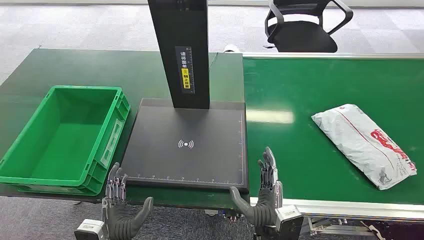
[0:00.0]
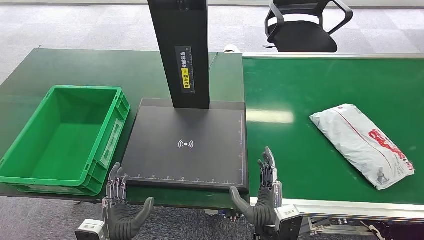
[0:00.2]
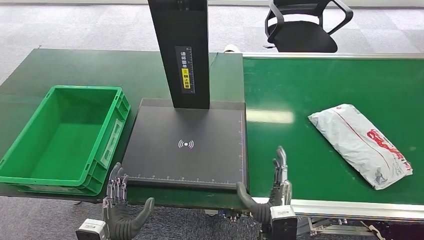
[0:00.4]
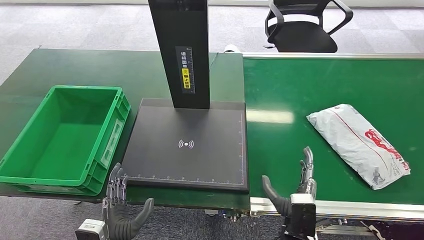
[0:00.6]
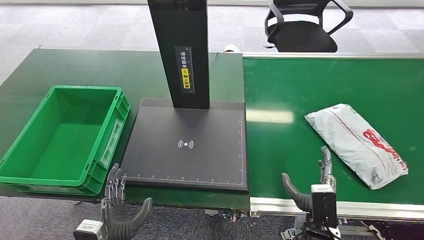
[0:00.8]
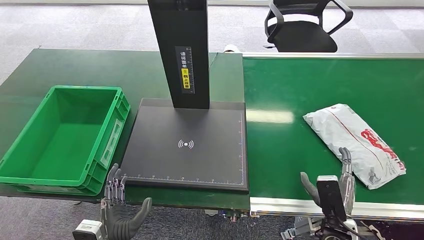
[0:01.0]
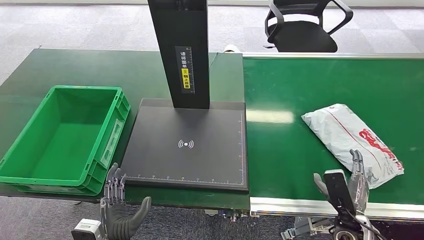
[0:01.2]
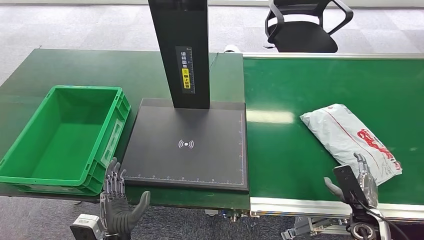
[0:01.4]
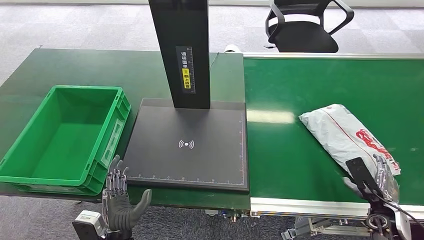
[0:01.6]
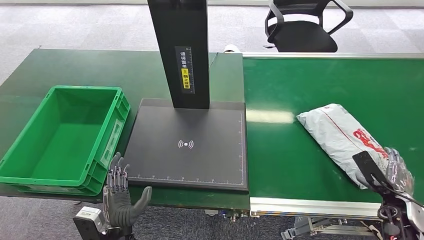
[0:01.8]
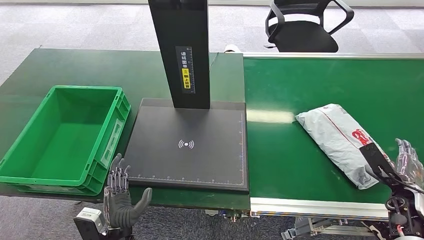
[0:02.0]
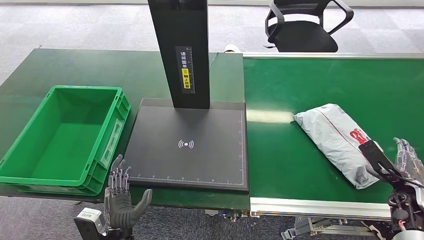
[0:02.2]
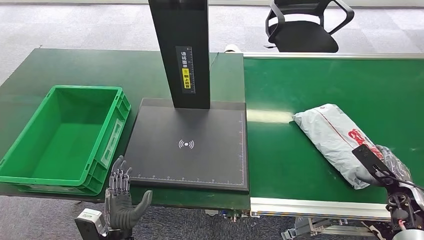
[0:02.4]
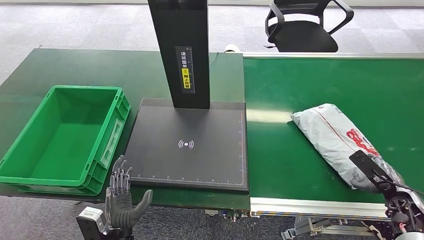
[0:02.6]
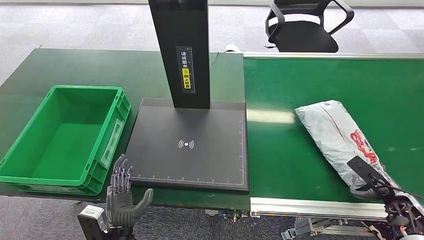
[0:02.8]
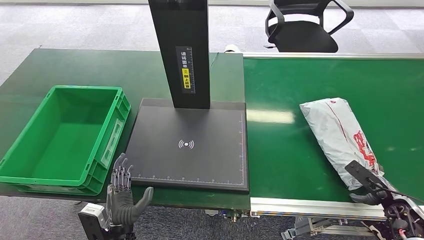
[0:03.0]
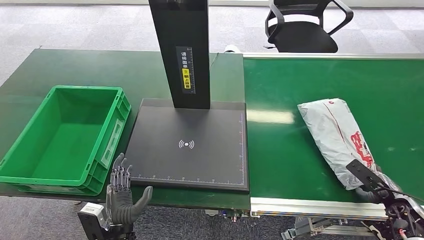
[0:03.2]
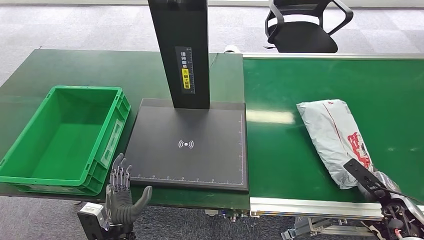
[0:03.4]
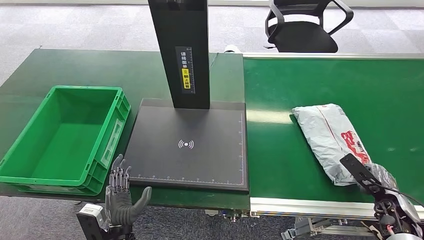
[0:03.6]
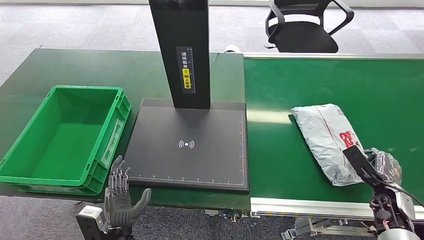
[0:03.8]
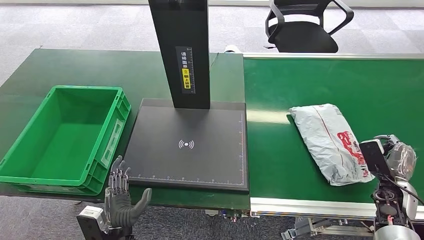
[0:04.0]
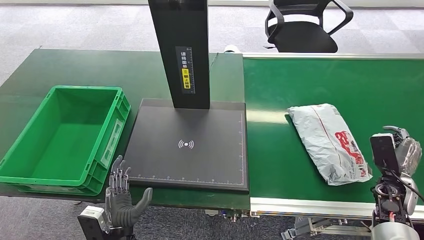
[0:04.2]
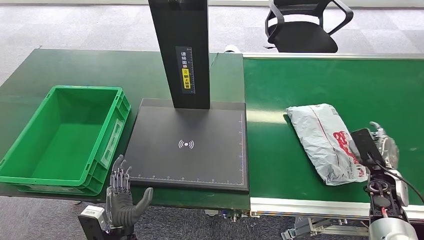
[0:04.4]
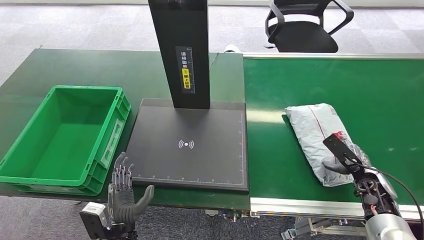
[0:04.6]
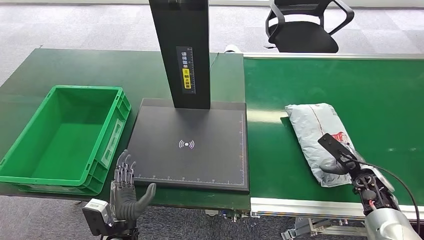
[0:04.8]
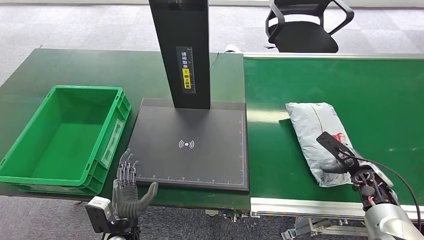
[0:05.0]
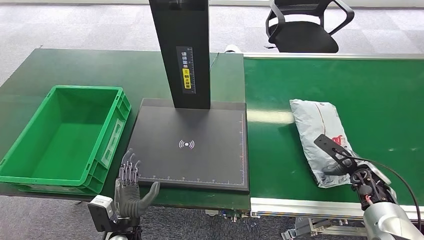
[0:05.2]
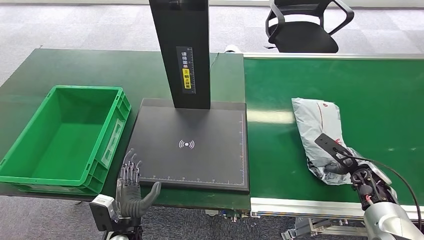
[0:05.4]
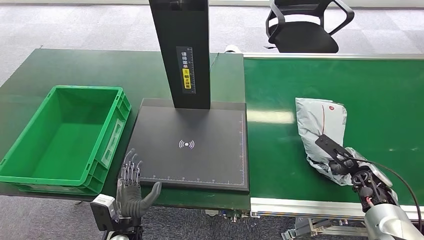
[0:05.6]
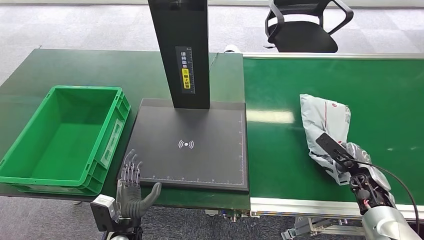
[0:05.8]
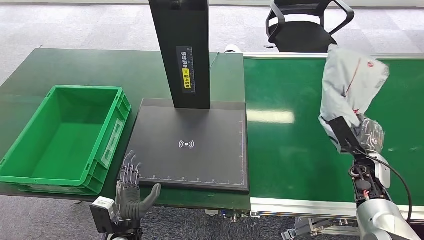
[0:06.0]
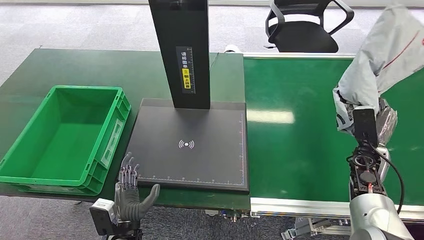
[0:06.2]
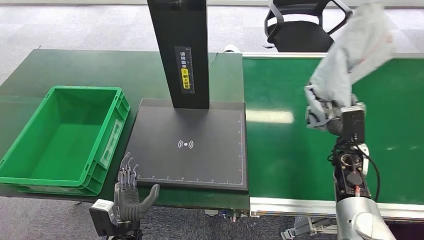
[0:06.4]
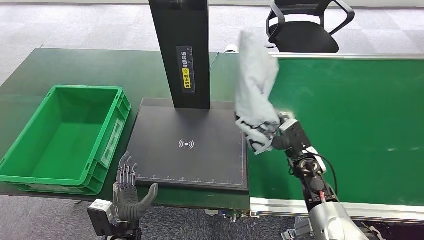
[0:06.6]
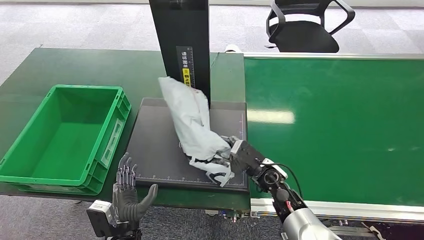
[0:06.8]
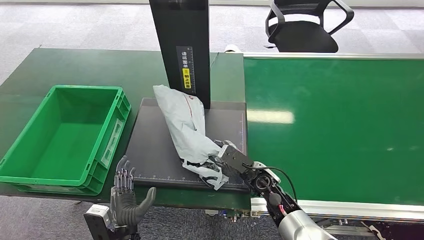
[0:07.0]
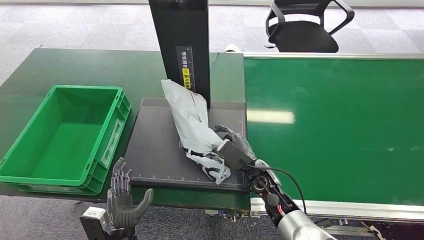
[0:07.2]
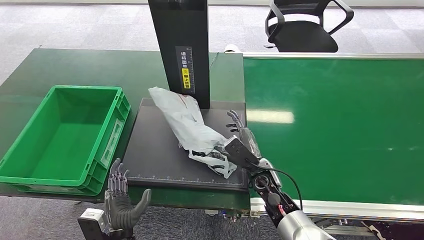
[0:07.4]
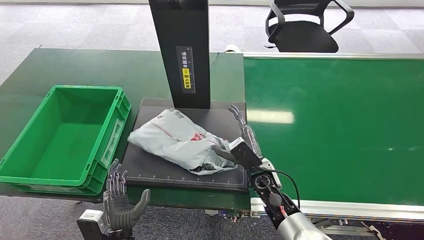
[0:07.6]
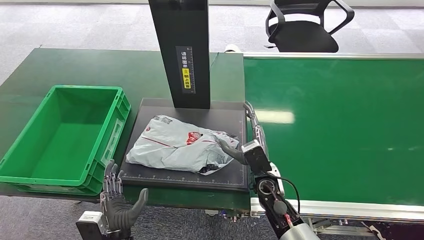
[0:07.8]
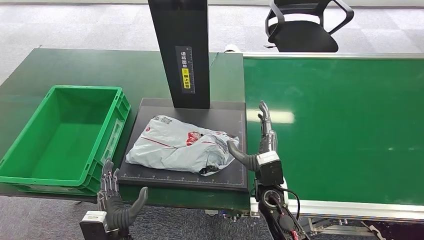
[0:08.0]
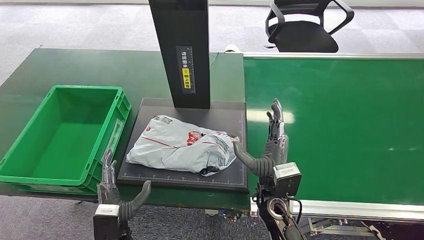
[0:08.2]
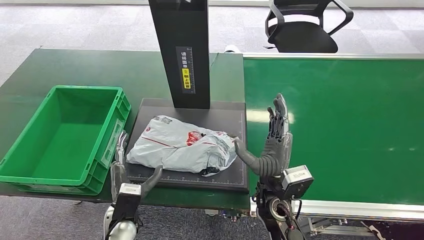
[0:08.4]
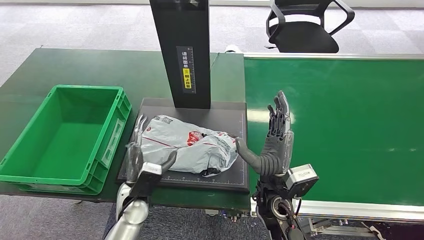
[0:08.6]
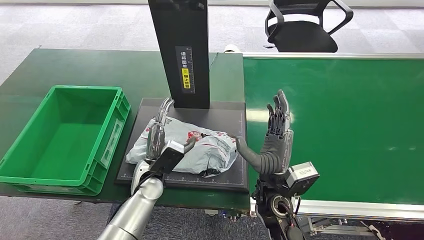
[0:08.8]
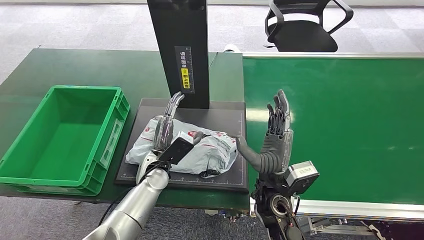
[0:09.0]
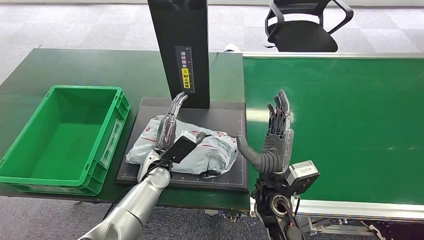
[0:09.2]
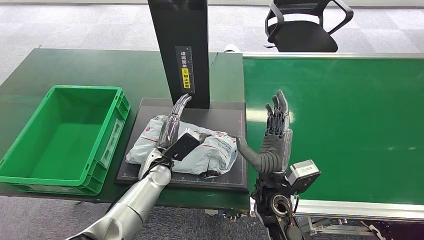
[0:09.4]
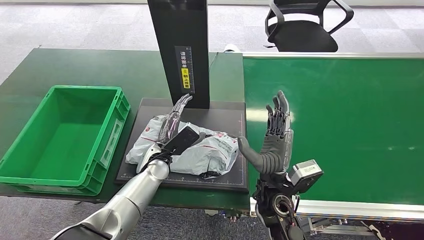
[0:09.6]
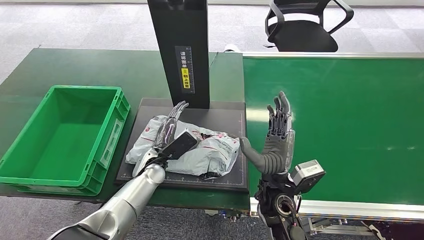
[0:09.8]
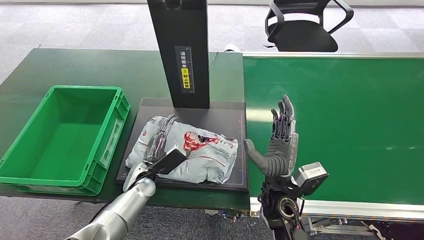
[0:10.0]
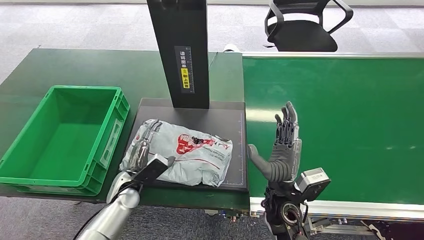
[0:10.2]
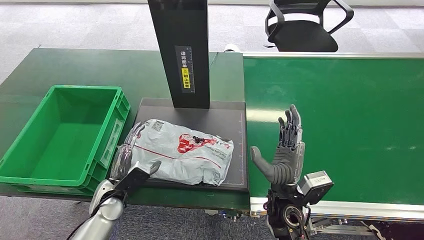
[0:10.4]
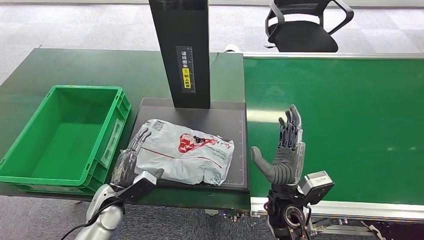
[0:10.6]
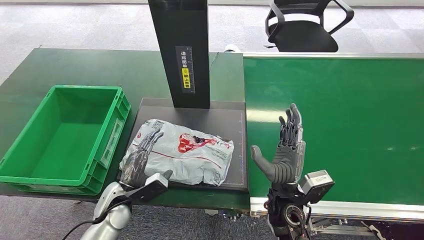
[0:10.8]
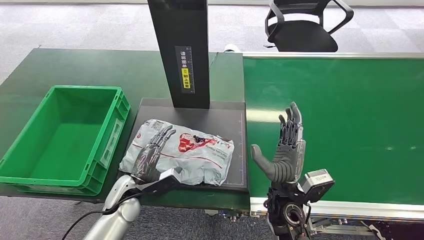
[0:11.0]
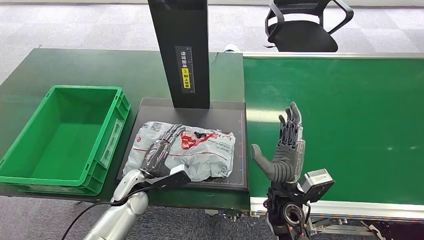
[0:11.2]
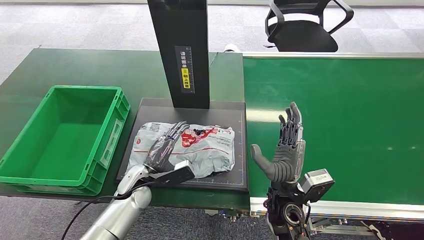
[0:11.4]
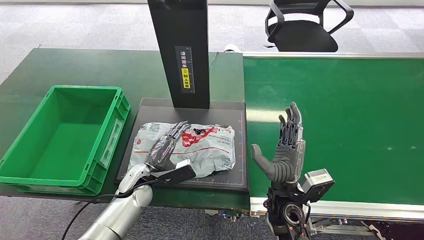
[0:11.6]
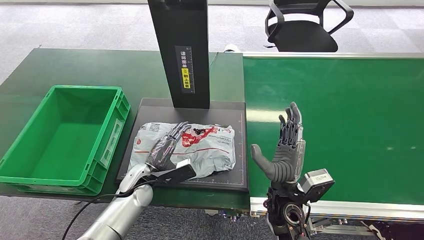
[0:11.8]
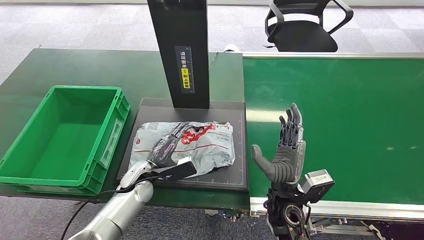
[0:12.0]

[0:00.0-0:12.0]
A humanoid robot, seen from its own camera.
Step, 0:00.0 to 0:06.2: Pick up the package from the conveyor belt.
Step, 0:06.6 to 0:08.4: Place the package onto the inbound machine.
0:01.6 to 0:03.0: The right hand shifts approximately 5 cm to the right.
0:03.0 to 0:04.4: The right hand heads forward and to the left, covering approximately 10 cm.
0:04.4 to 0:06.0: The right hand ends up approximately 5 cm from where it was.
0:07.6 to 0:09.0: The left hand shifts approximately 20 cm forward and upward. The right hand heads upward and backward, covering some 10 cm.
0:09.0 to 0:10.4: The left hand is displaced to the left, backward and downward by about 15 cm.
0:10.4 to 0:12.0: The left hand is displaced to the right and forward by some 10 cm.

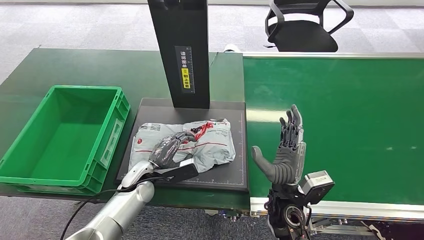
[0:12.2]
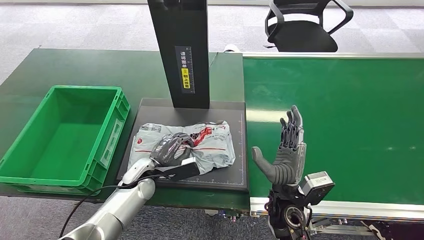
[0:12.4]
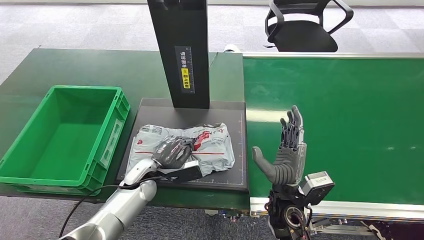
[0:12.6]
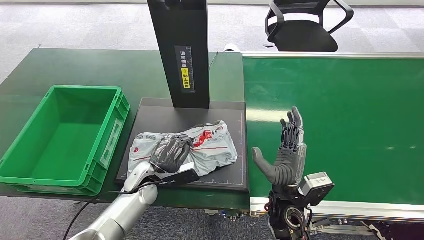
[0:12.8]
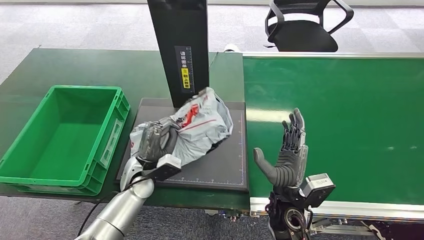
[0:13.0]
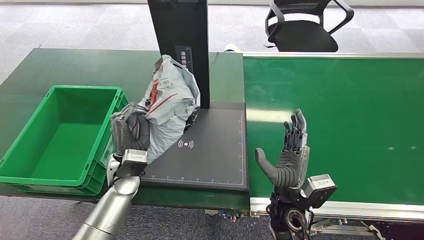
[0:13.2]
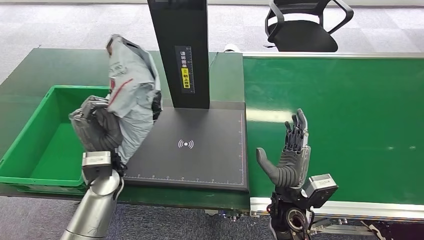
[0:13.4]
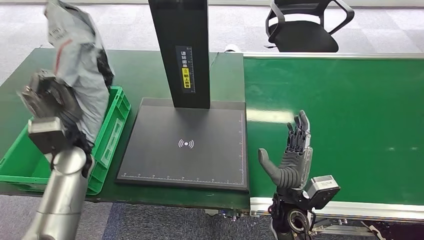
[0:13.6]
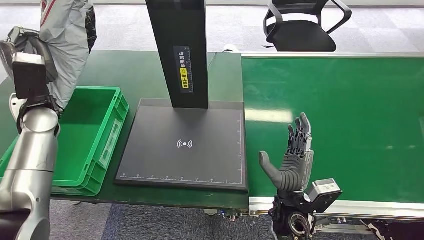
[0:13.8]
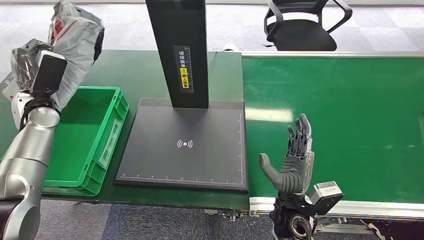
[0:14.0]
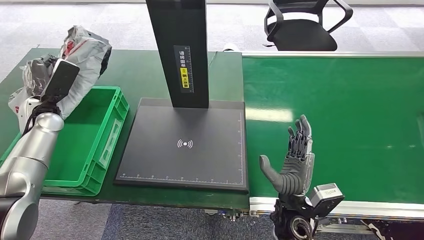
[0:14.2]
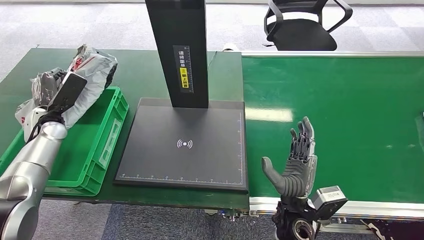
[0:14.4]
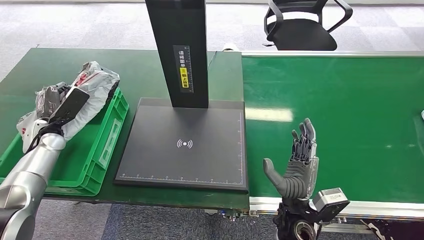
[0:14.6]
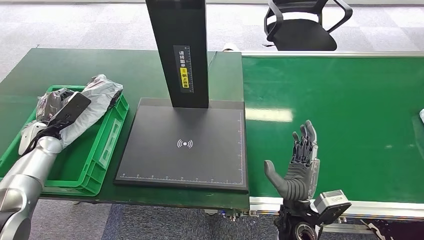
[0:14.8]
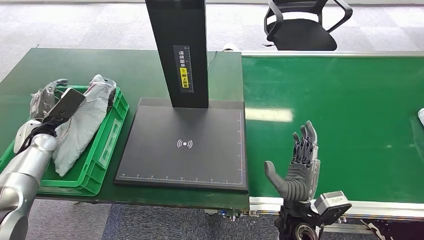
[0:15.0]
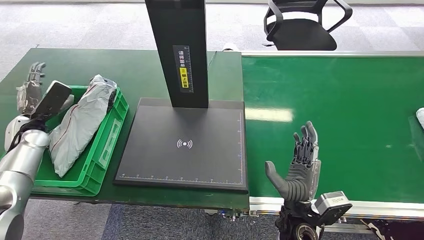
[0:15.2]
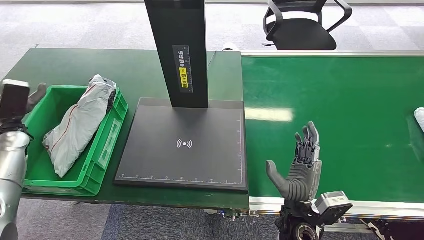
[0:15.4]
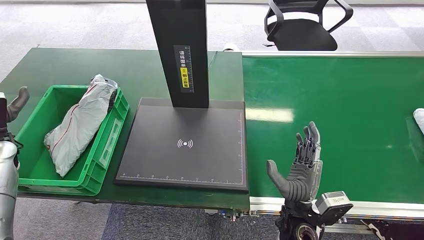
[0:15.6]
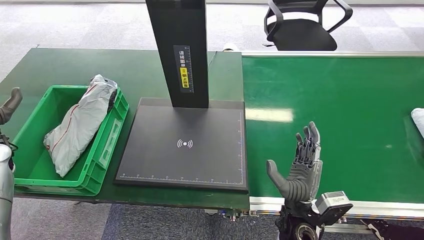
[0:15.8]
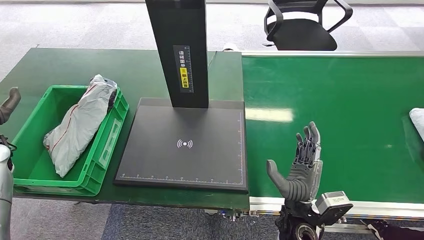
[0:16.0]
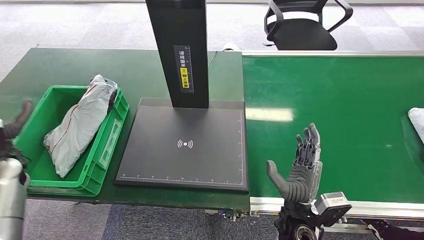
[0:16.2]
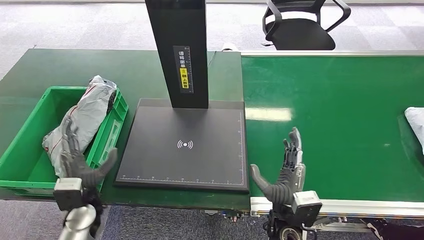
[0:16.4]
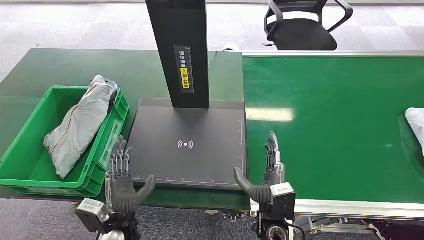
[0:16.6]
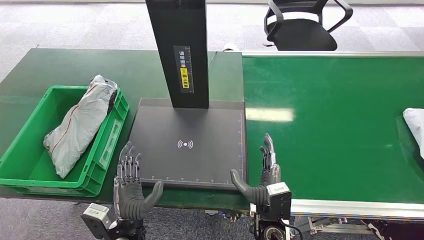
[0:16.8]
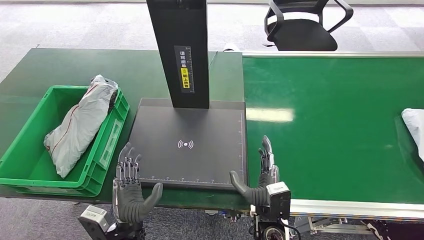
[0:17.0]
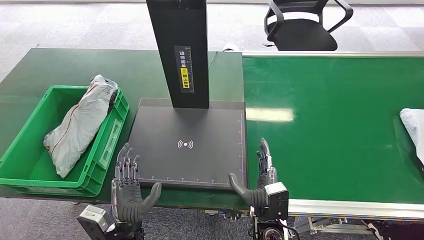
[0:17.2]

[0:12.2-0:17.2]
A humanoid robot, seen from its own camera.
Step, 0:13.8 to 0:17.2: Place the package into the parcel locker.
0:15.6 to 0:17.2: The left hand moves to the right, backward and downward, about 40 cm. Meanwhile the right hand is displaced to the left by some 5 cm.
